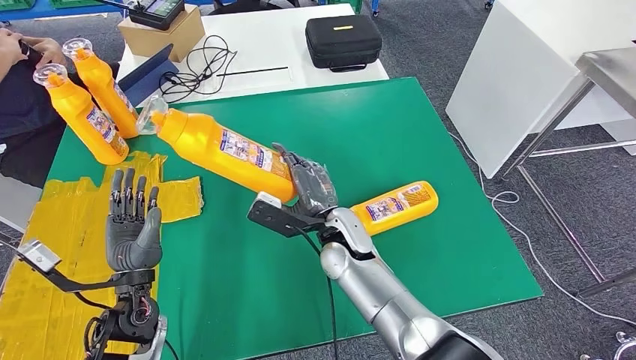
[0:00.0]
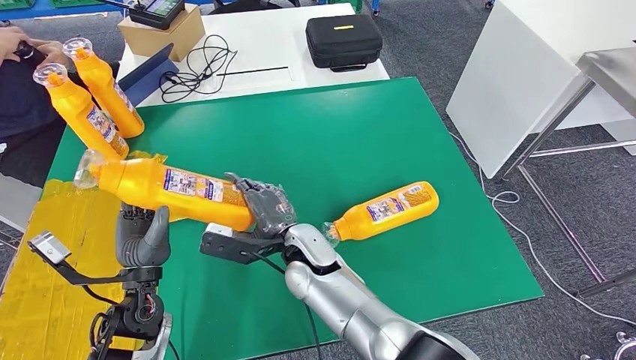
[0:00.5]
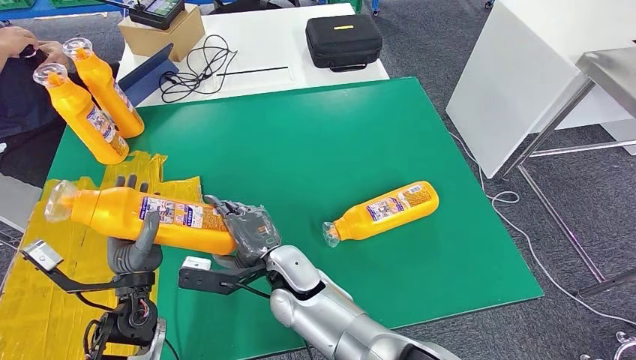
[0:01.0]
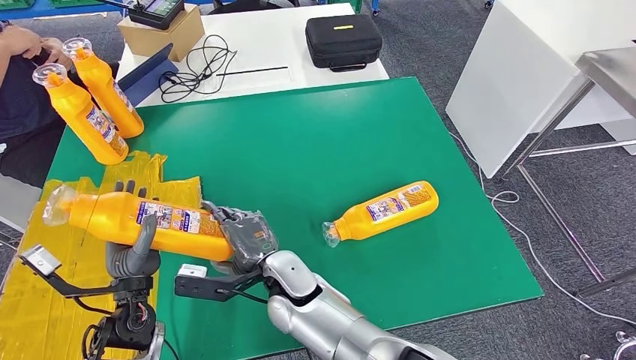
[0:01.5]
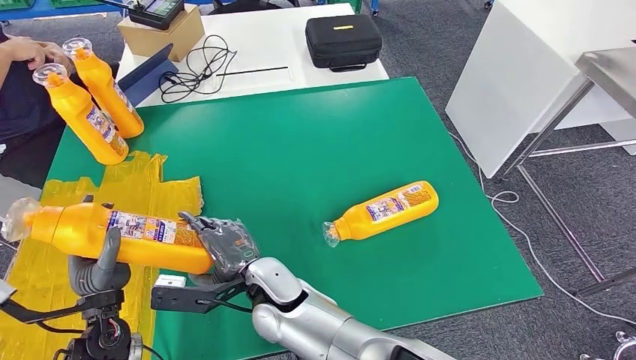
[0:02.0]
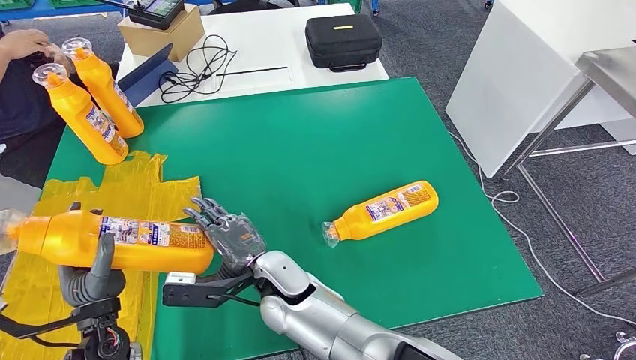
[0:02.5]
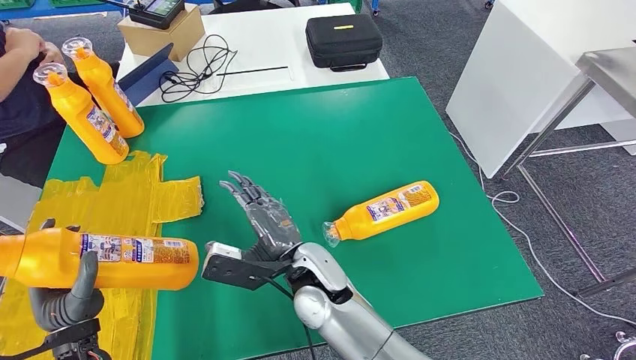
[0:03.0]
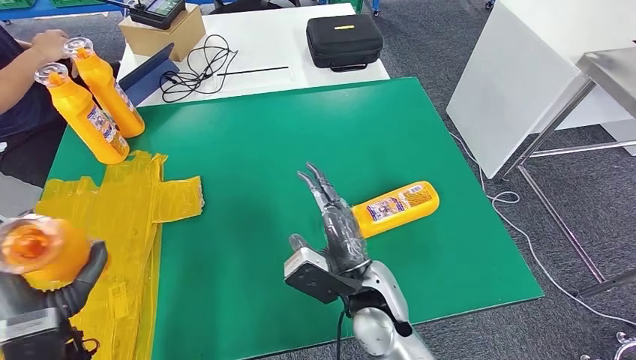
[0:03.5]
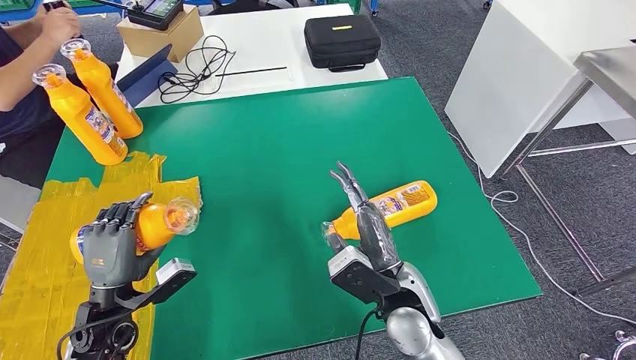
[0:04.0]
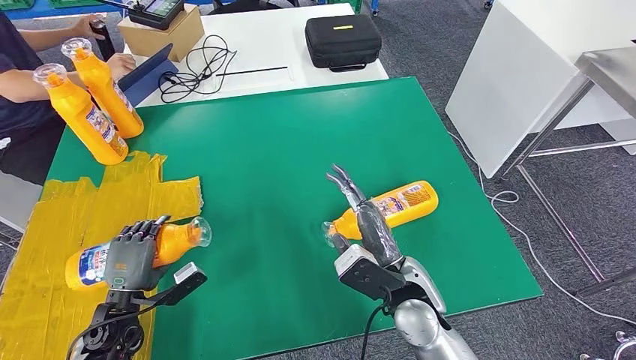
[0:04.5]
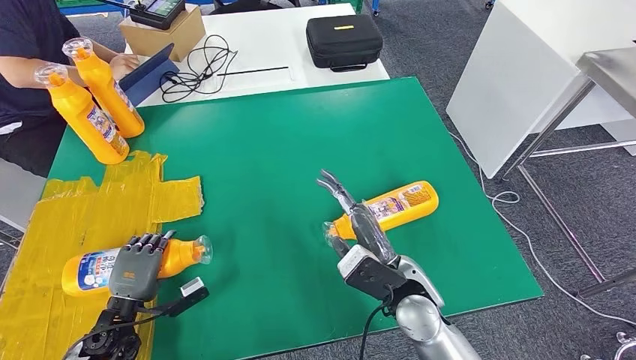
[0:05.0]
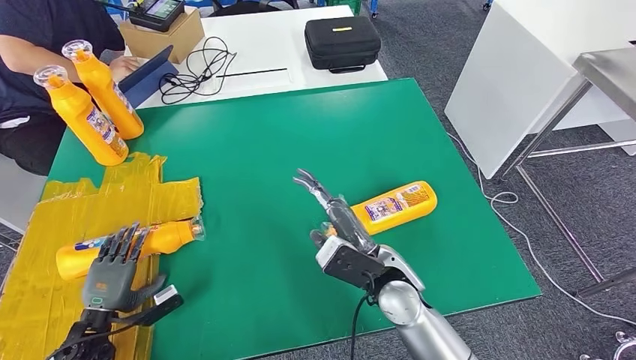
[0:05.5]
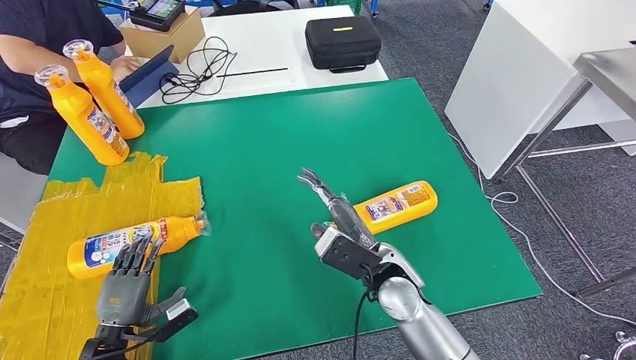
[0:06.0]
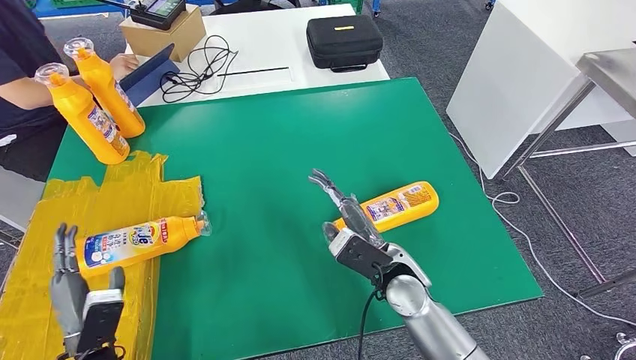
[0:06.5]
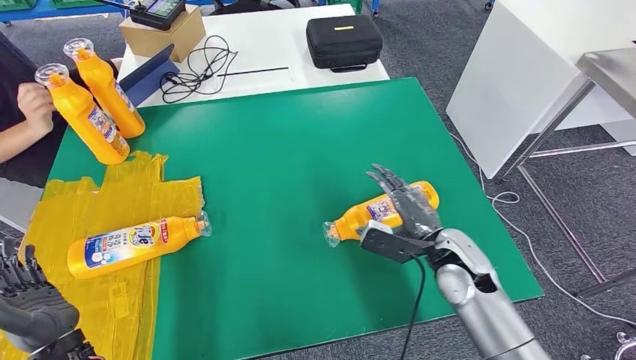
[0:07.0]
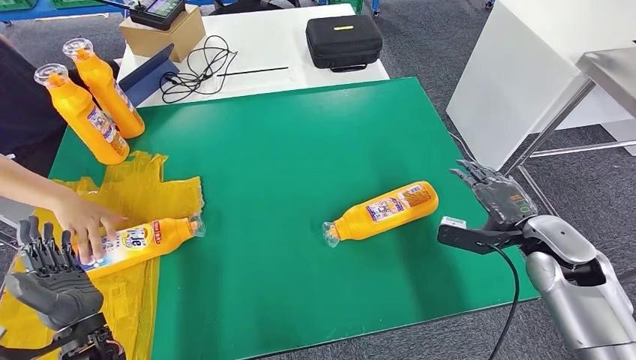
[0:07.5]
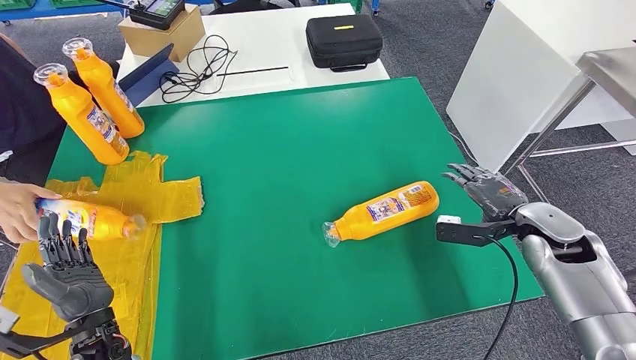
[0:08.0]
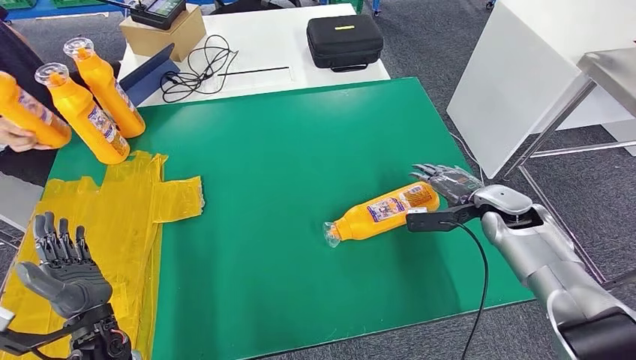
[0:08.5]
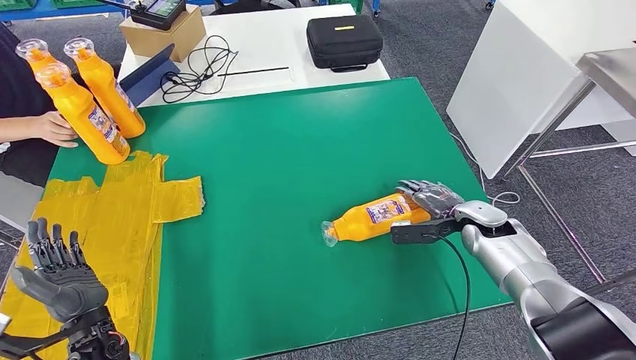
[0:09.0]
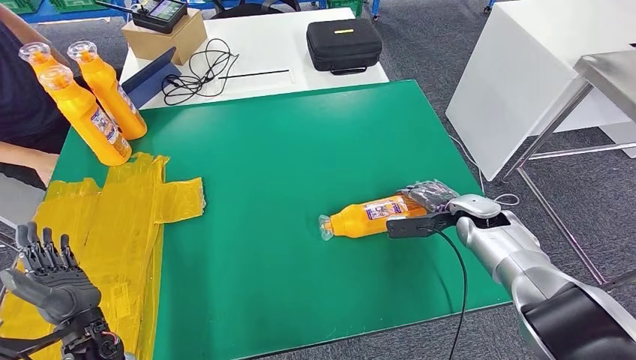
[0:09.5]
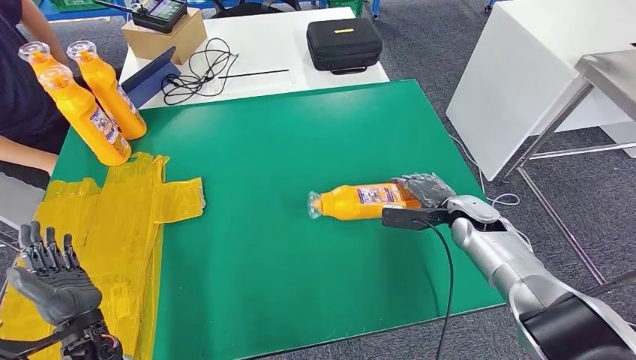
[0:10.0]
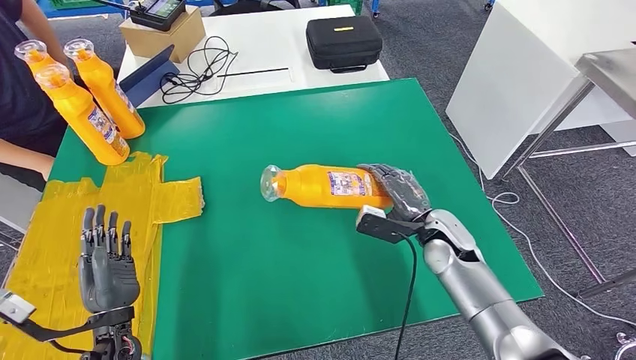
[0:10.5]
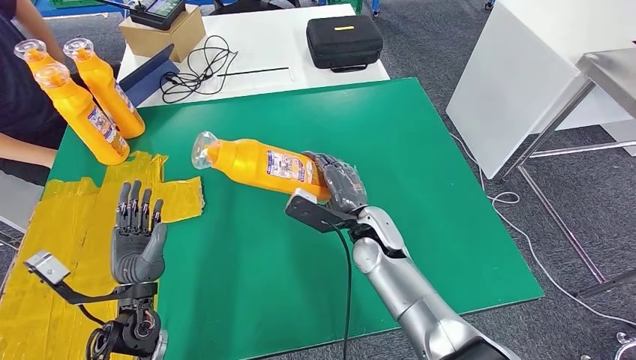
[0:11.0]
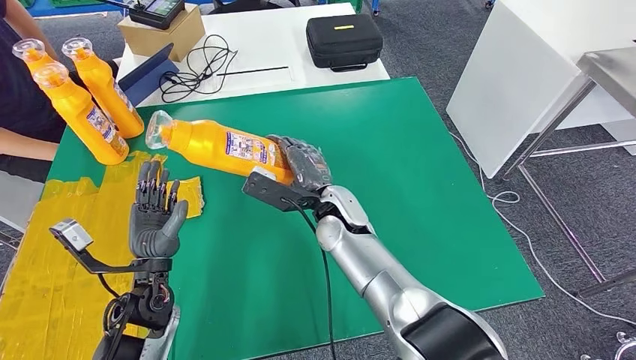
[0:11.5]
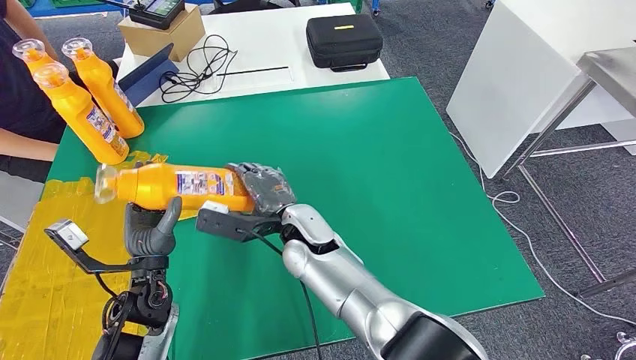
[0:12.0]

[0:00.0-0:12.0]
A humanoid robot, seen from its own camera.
Step, 0:00.0 to 0:05.0: Flip the fast-moving consumer goods bottle to the front side.
Step, 0:05.5 to 0:11.5: Pick up the fast-moving consumer goods bottle from the table.
0:04.0 to 0:06.0: The left hand shifts roughly 10 cm downward.

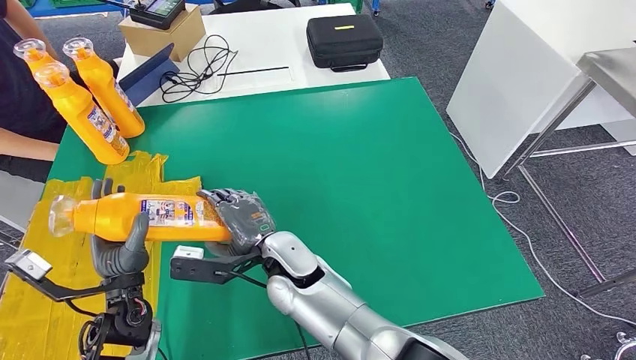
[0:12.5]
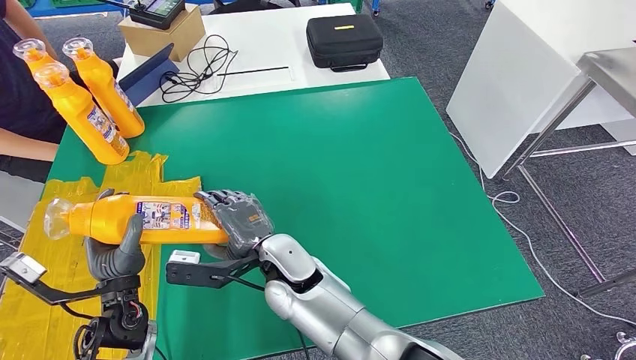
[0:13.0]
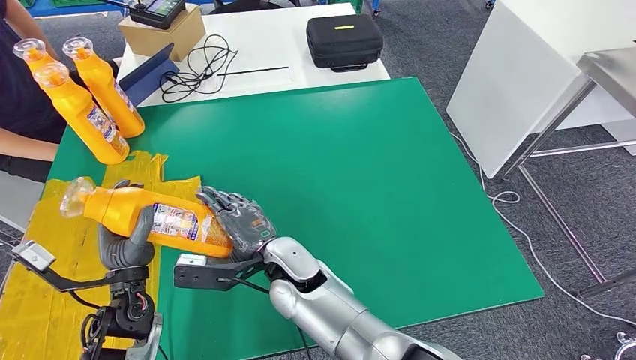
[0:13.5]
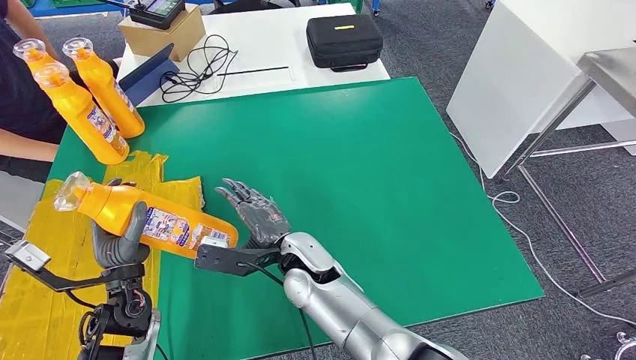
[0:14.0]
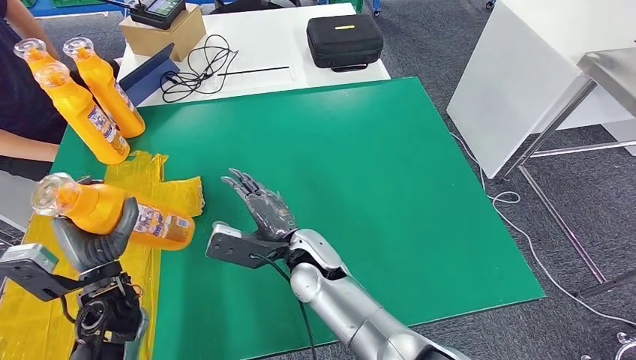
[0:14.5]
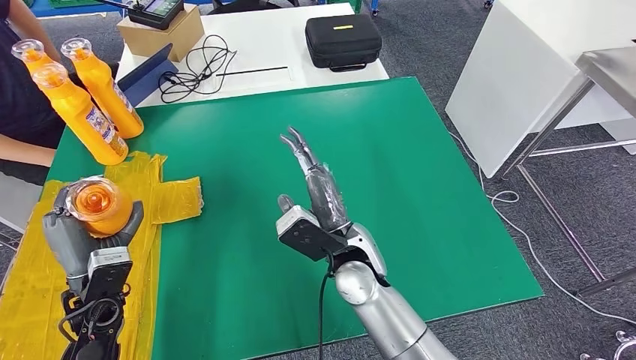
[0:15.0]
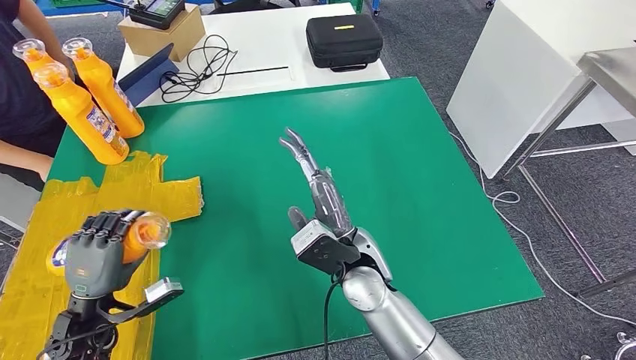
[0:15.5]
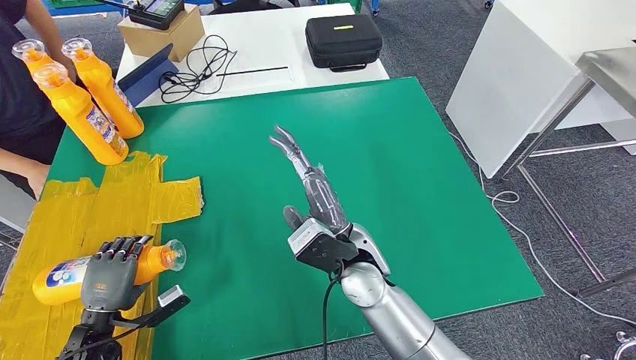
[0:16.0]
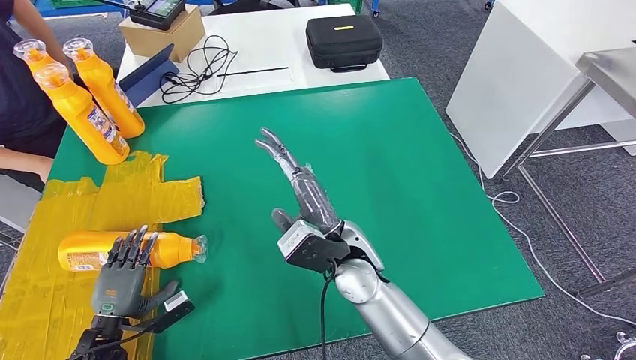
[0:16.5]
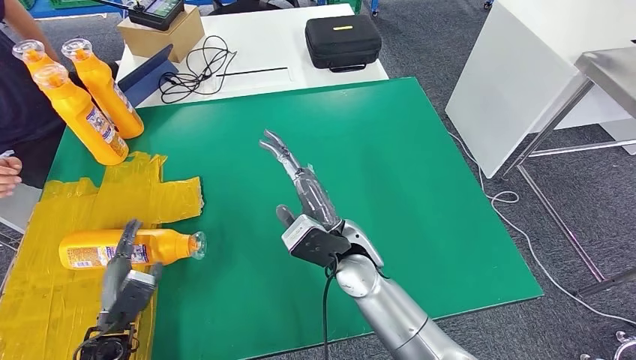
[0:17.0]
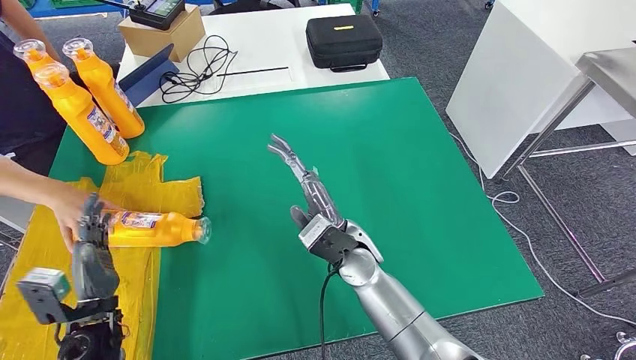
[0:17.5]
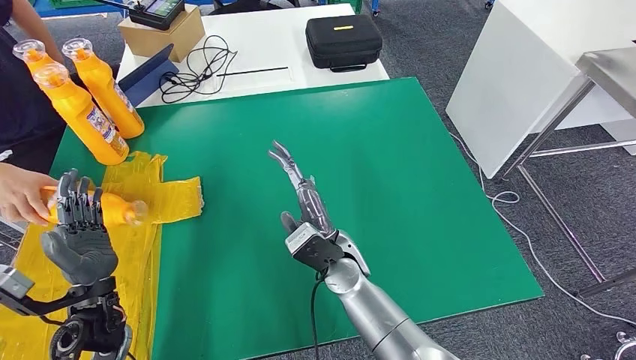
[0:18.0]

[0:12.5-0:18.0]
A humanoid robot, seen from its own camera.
Step, 0:12.5 to 0:18.0: Flip the fast-moving consumer goods bottle to the front side.
0:14.5 to 0:16.0: The right hand heads to the right, covering about 5 cm. Meanwhile the left hand goes approximately 10 cm downward and to the left.
0:16.0 to 0:18.0: The right hand shifts approximately 5 cm downward. The left hand moves upward and to the right, approximately 10 cm.
